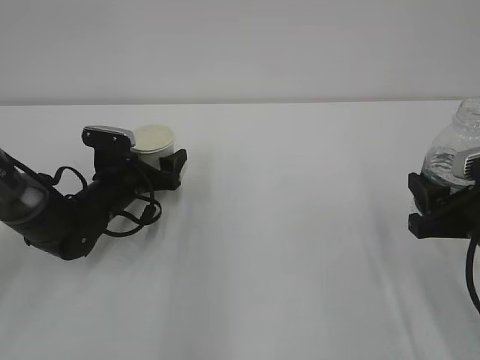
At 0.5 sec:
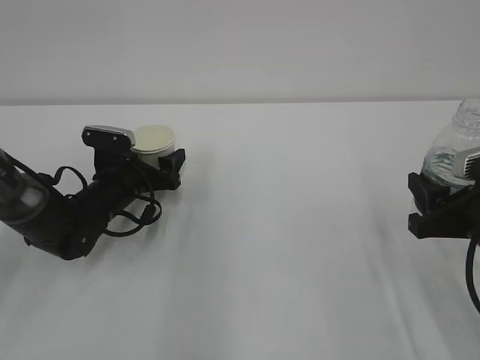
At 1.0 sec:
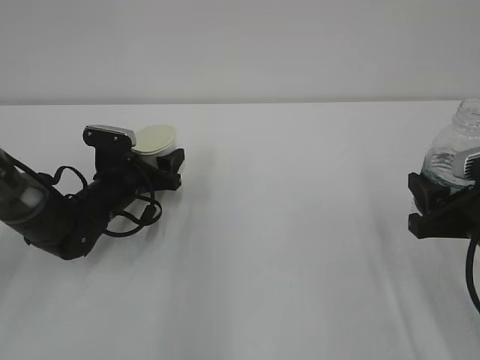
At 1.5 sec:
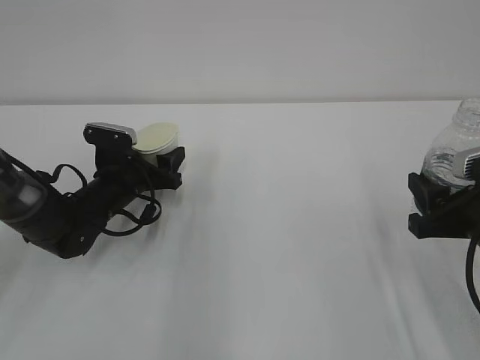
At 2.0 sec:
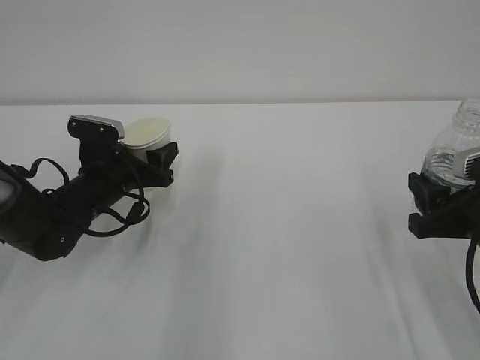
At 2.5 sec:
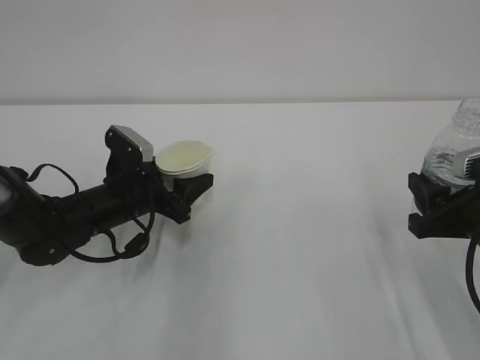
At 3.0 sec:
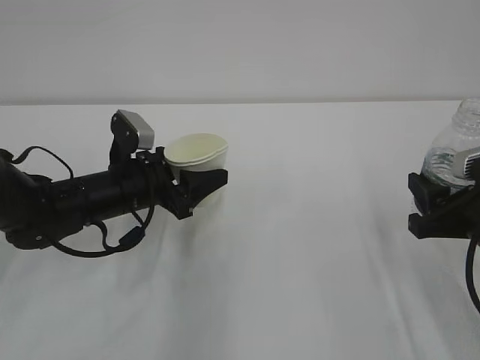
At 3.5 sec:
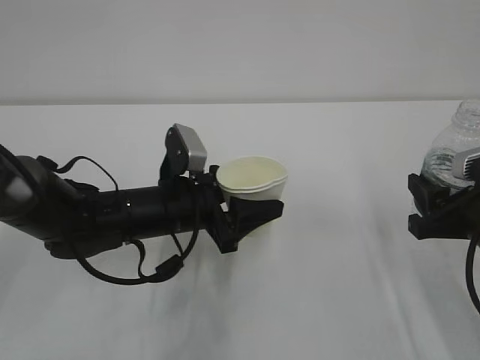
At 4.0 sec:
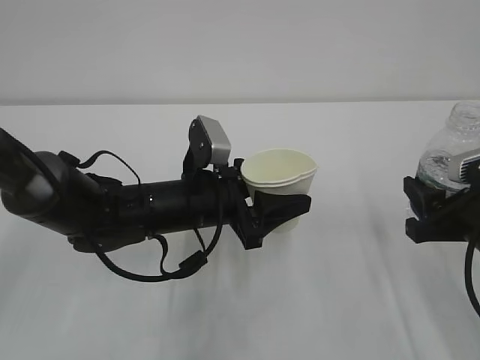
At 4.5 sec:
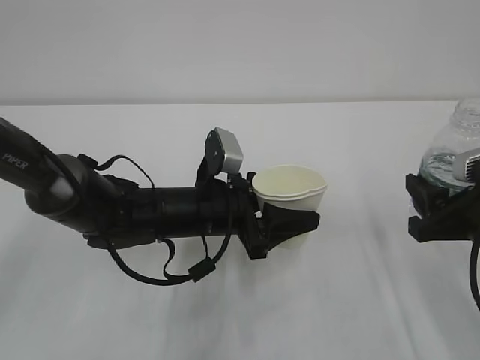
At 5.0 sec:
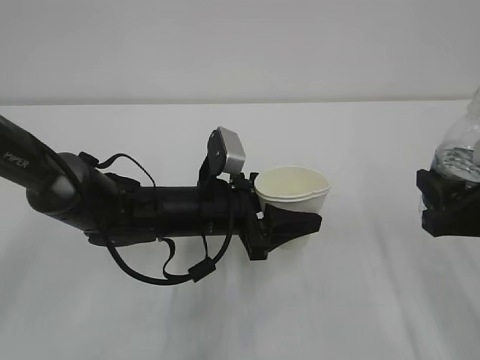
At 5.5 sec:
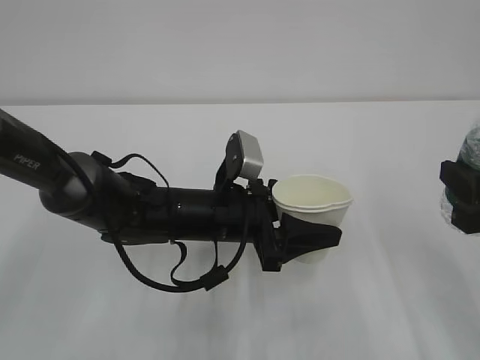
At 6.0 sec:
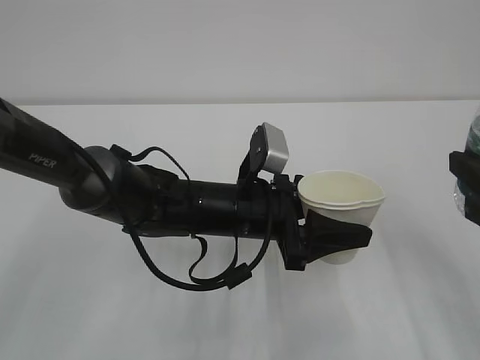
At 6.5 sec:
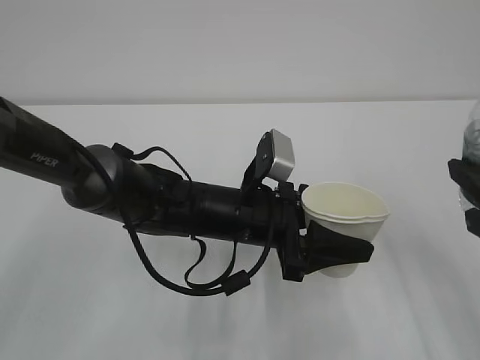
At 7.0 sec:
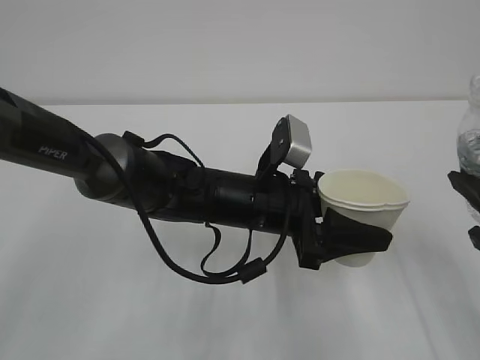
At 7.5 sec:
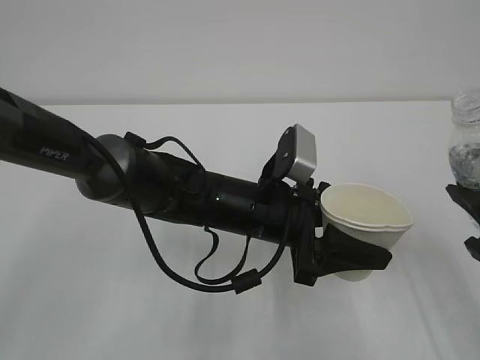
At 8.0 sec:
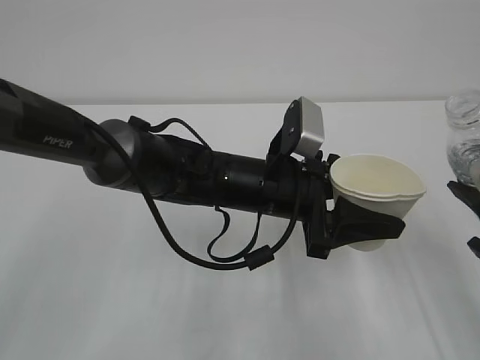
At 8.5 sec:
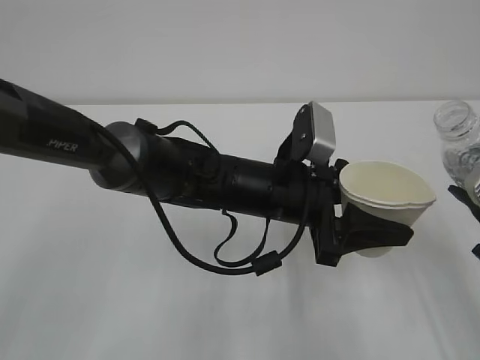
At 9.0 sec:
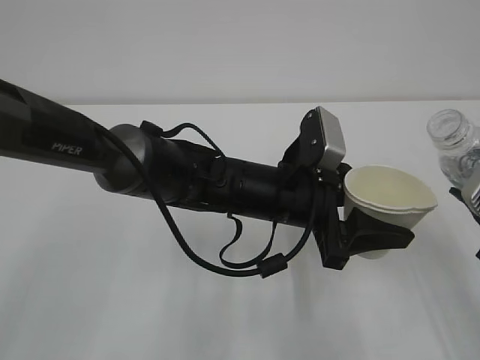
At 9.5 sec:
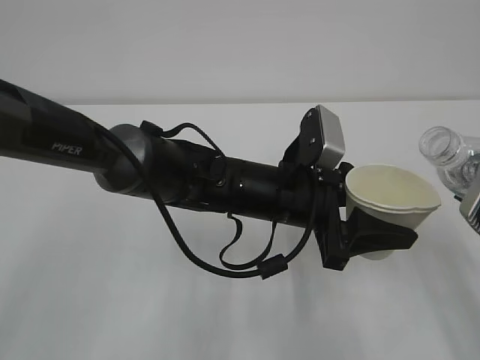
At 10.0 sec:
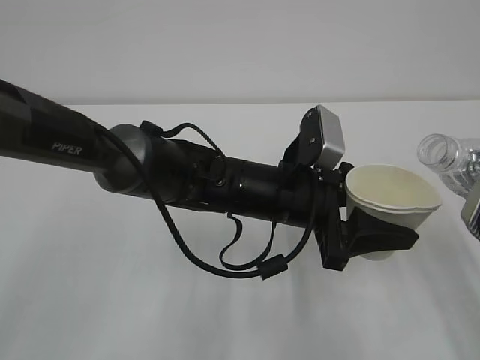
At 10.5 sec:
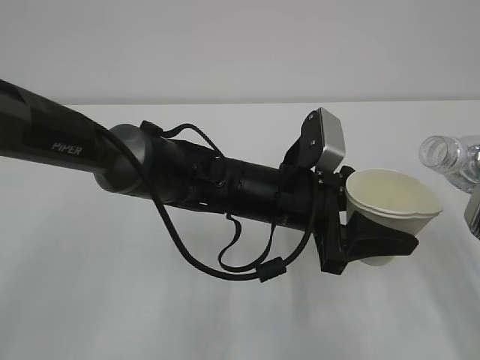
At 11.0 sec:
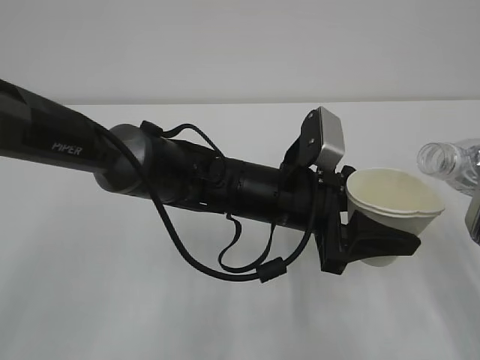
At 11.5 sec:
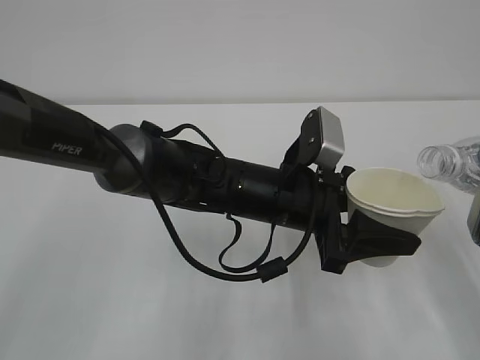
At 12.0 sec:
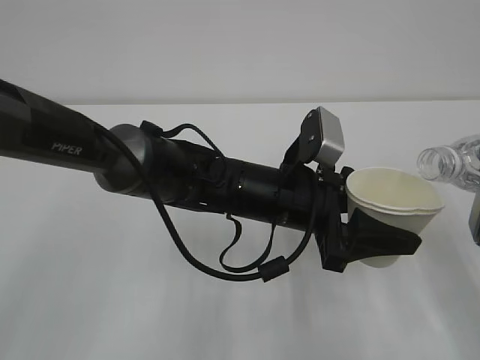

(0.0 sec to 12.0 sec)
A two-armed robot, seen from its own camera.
0.0 sec - 2.0 sec: The left gripper closes.
2.0 sec - 4.0 sec: The left gripper shifts roughly 15 cm to the right and backward.
4.0 sec - 6.0 sec: The left gripper goes approximately 5 cm to the right. Meanwhile the right gripper moves upward, roughly 10 cm.
10.0 sec - 12.0 sec: There are only small adjustments of the grippers.

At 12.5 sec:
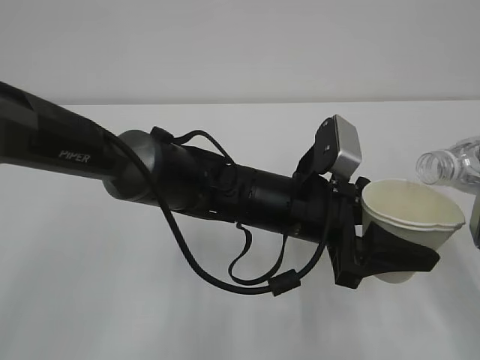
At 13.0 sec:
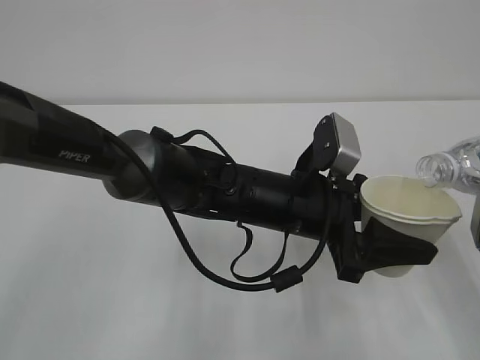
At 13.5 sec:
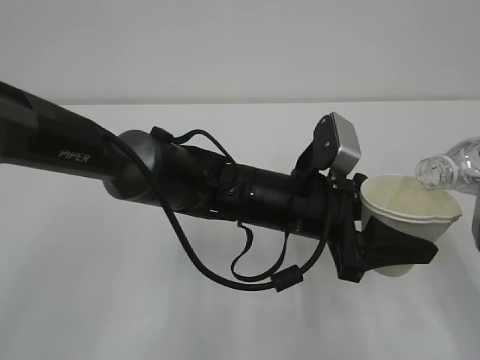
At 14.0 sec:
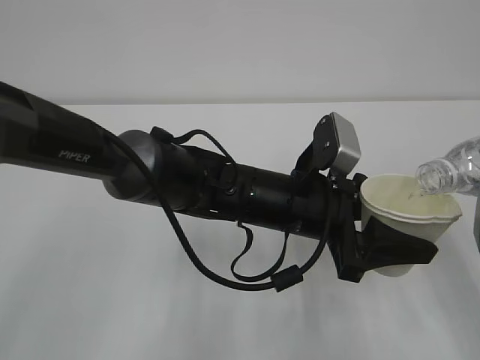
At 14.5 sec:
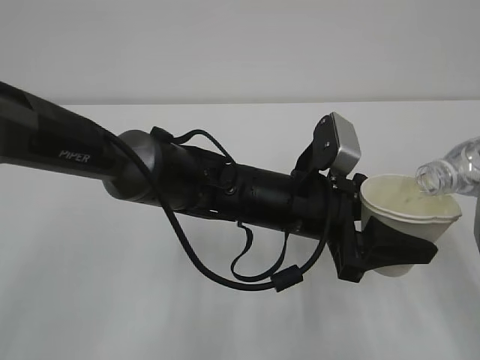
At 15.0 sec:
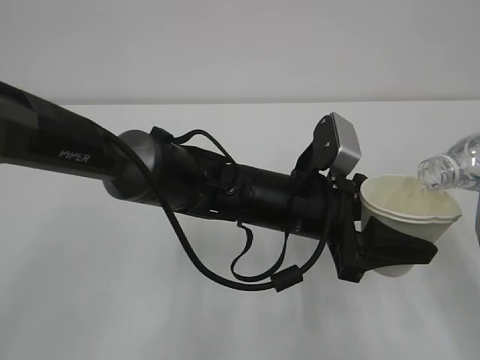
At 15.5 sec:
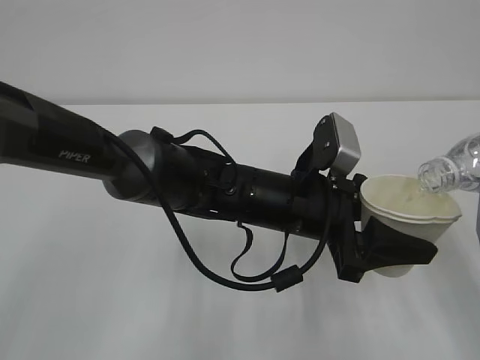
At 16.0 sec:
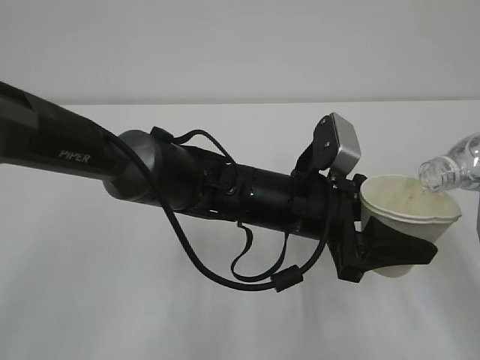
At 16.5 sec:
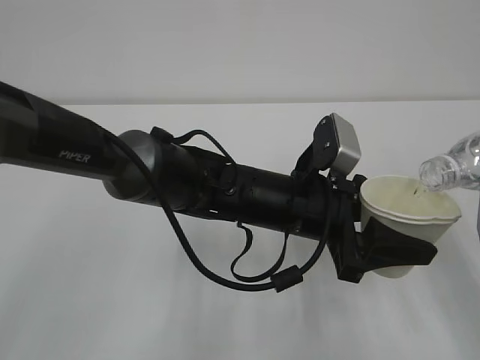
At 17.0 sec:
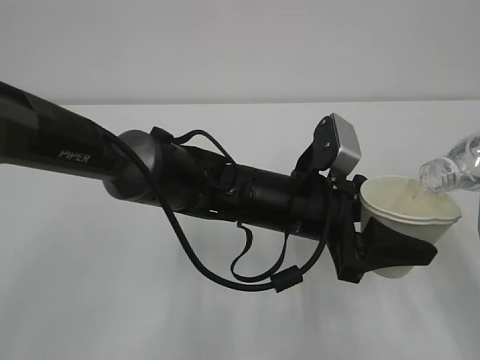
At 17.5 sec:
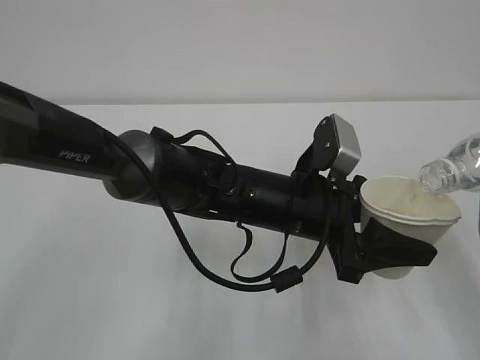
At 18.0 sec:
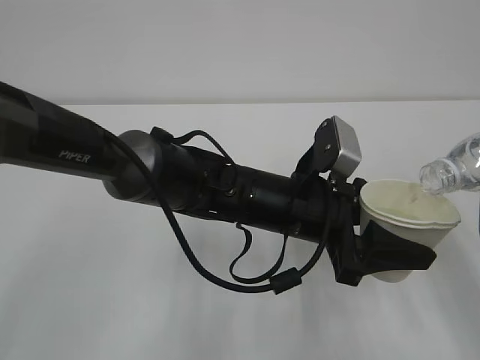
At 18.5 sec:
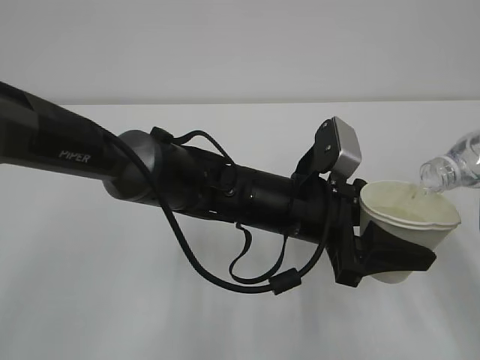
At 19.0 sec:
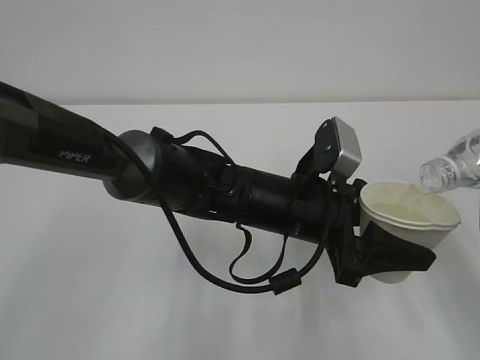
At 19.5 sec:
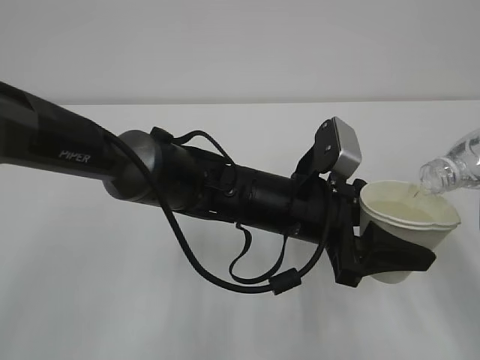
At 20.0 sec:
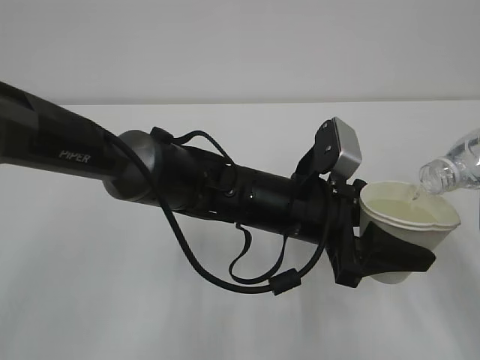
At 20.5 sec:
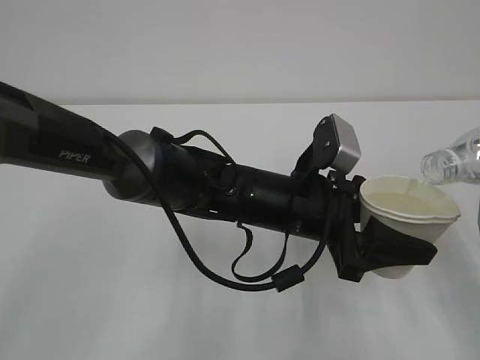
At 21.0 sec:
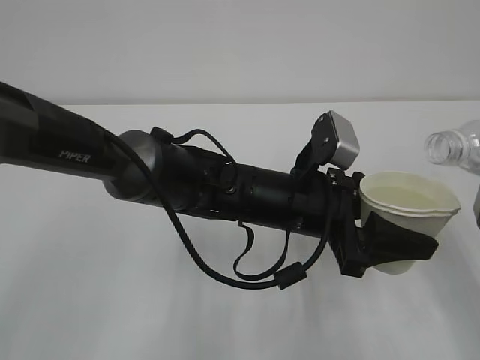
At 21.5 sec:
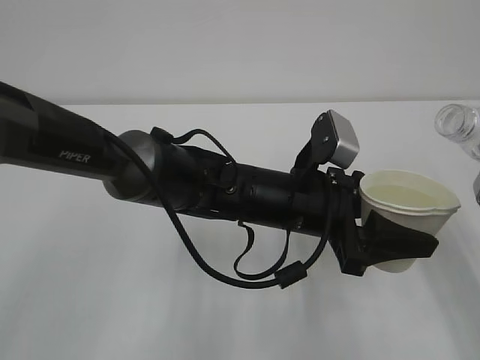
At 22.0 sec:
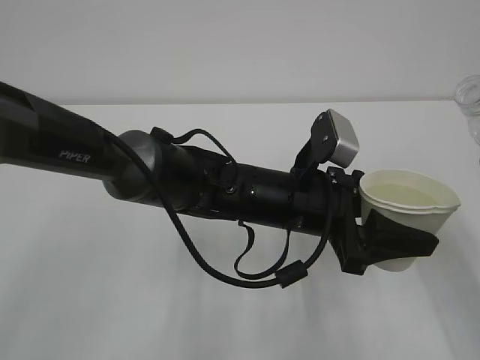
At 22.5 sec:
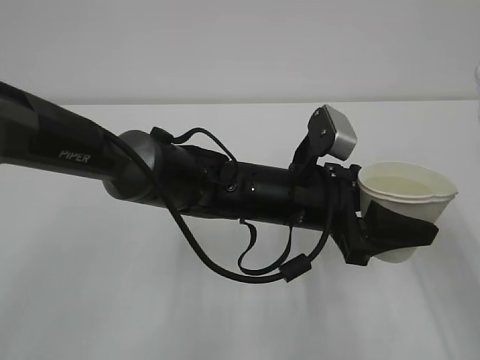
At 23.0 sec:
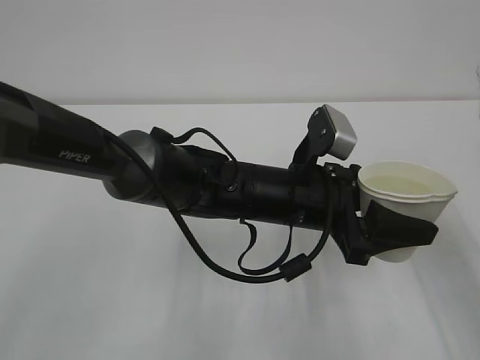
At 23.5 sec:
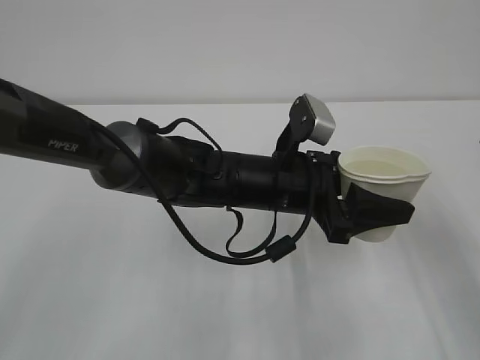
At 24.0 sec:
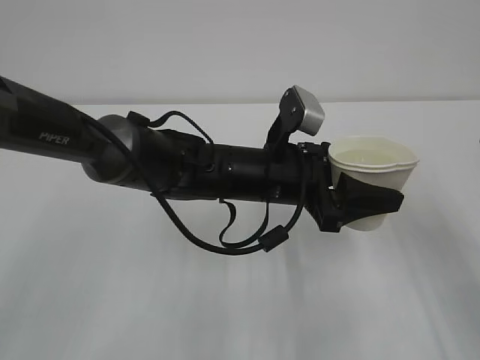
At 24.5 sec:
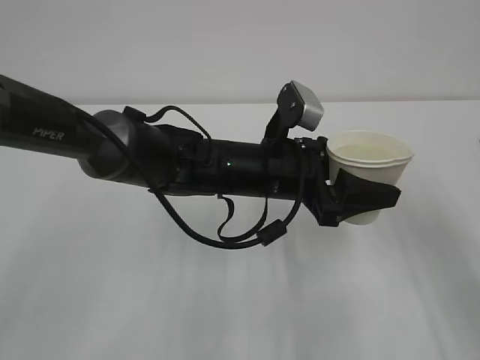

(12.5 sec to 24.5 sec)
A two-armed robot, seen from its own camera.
12.5 sec - 14.5 sec: There are only small adjustments of the grippers.
14.5 sec - 16.5 sec: Both grippers stay about where they are.
16.5 sec - 18.5 sec: Neither gripper changes place.
18.5 sec - 20.5 sec: Both grippers stay put.
22.5 sec - 24.5 sec: The grippers make only small movements.

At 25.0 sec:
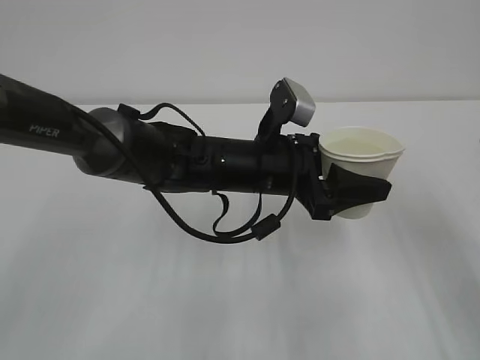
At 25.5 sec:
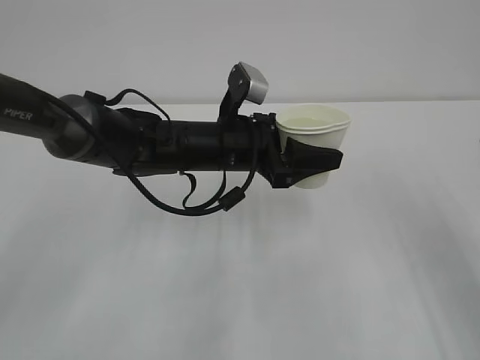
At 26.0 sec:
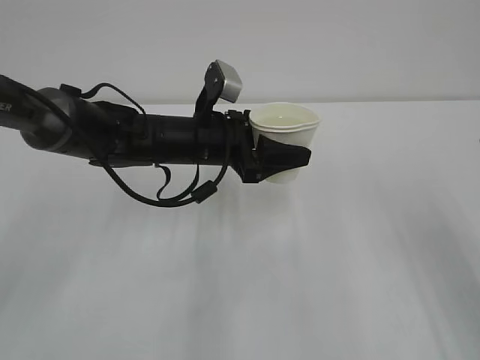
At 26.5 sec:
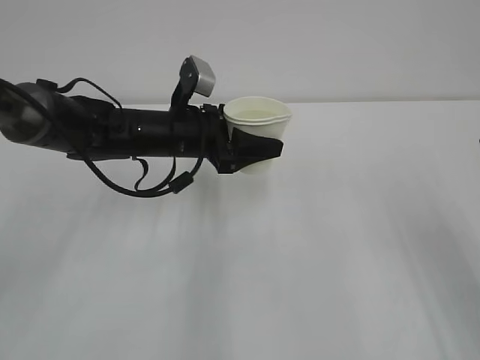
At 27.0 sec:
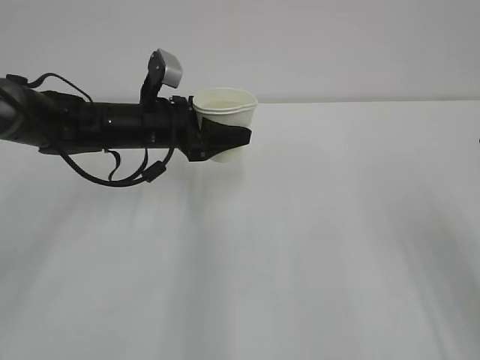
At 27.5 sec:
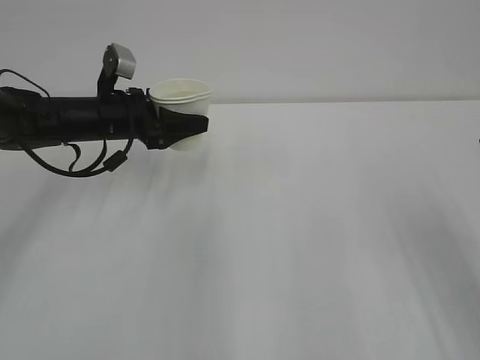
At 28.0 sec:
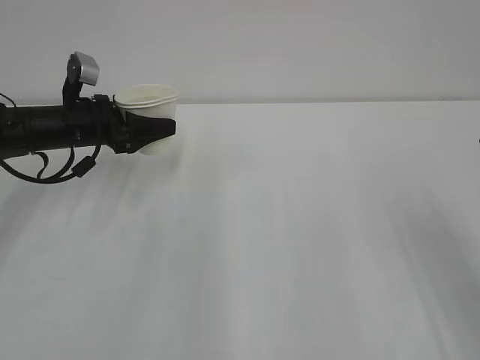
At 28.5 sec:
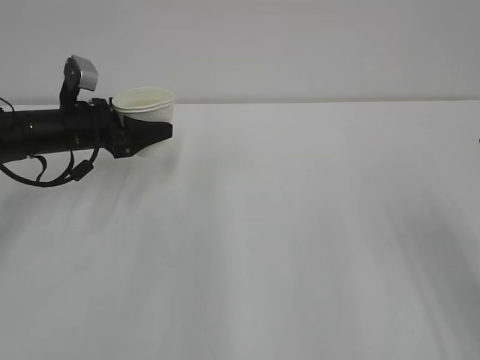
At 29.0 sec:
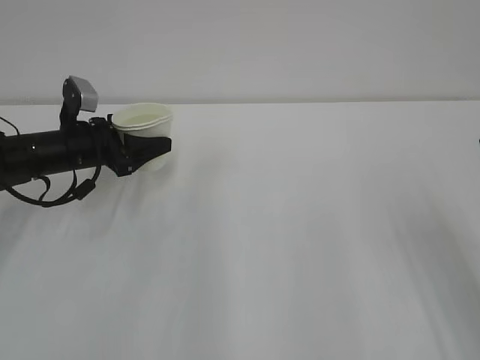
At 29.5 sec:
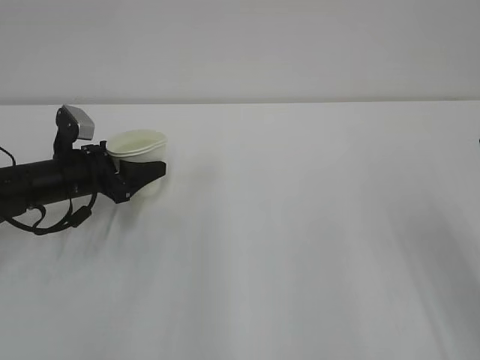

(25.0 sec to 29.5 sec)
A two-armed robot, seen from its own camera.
25.0 sec - 27.0 sec: The left gripper shifts some 15 cm to the left and forward.
27.0 sec - 29.5 sec: The left gripper goes approximately 15 cm to the left and downward.
